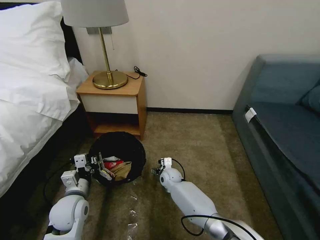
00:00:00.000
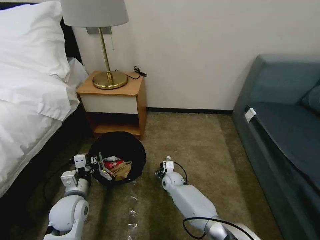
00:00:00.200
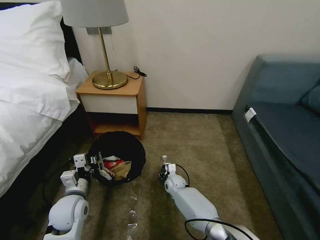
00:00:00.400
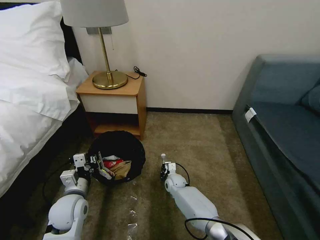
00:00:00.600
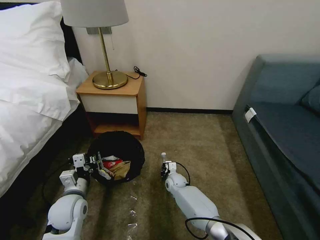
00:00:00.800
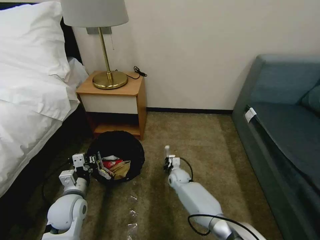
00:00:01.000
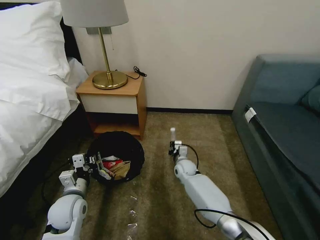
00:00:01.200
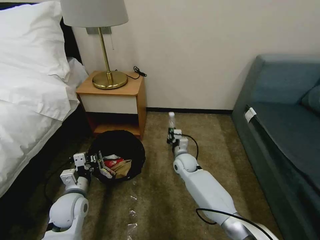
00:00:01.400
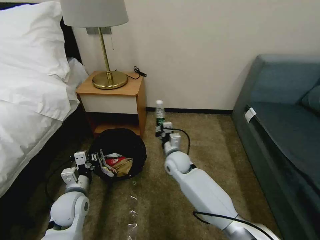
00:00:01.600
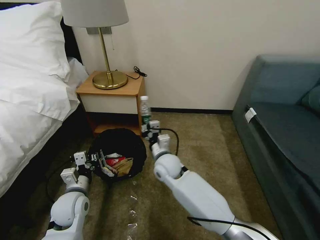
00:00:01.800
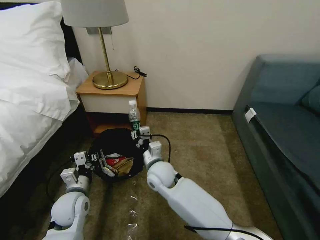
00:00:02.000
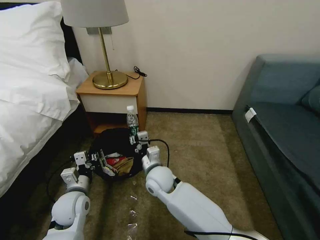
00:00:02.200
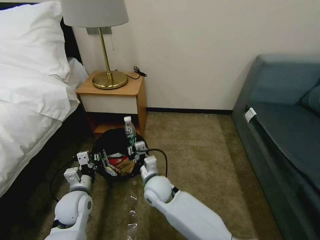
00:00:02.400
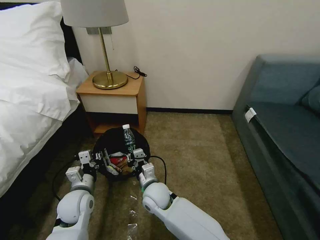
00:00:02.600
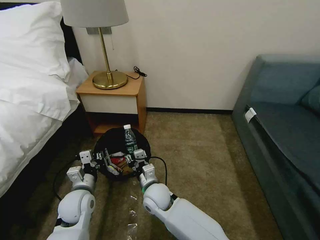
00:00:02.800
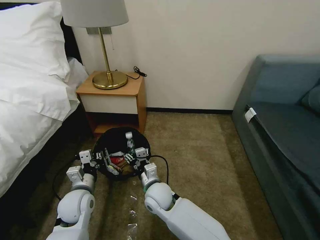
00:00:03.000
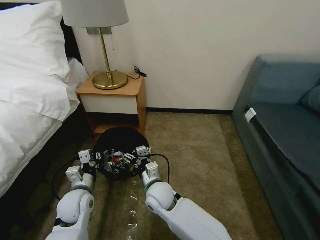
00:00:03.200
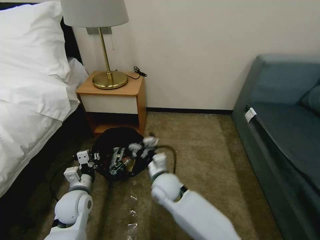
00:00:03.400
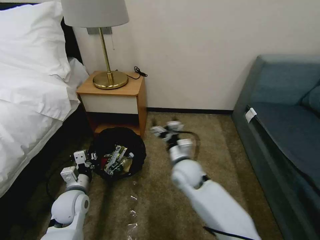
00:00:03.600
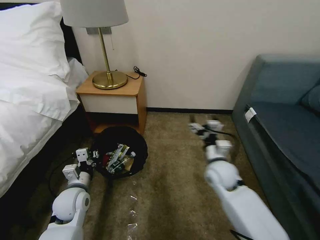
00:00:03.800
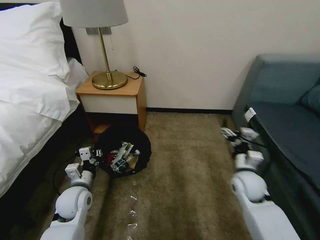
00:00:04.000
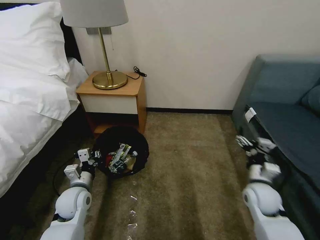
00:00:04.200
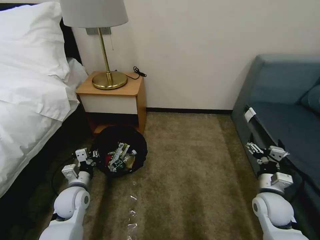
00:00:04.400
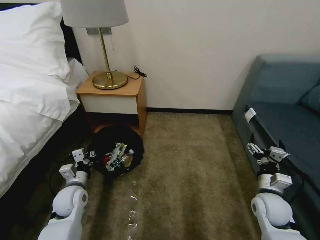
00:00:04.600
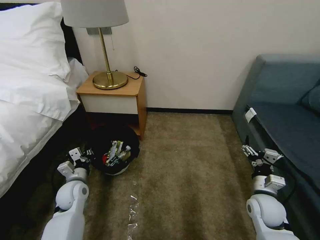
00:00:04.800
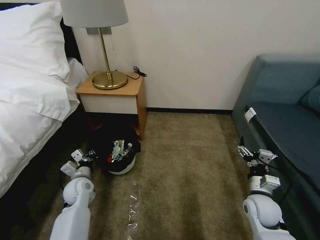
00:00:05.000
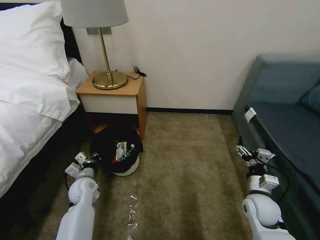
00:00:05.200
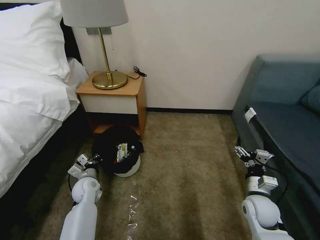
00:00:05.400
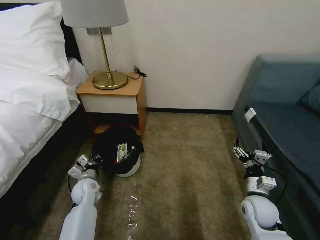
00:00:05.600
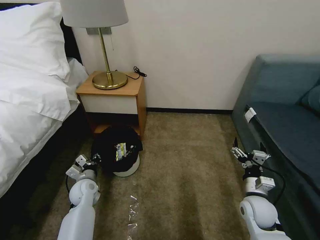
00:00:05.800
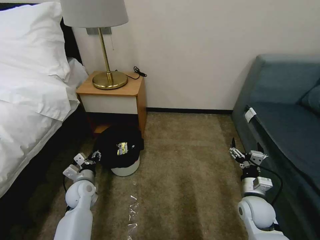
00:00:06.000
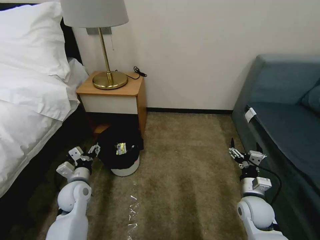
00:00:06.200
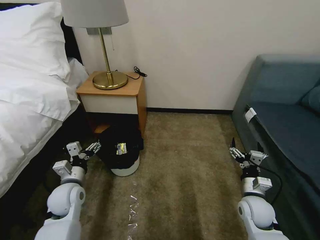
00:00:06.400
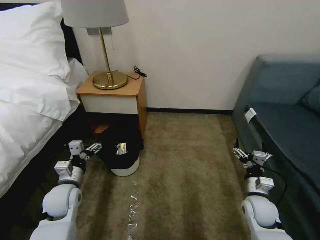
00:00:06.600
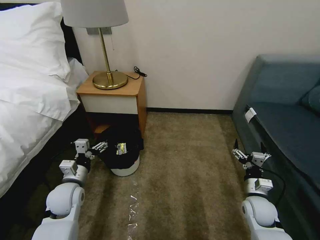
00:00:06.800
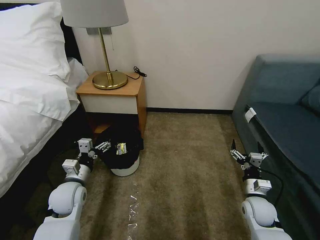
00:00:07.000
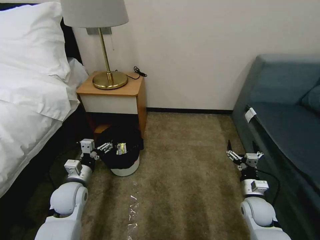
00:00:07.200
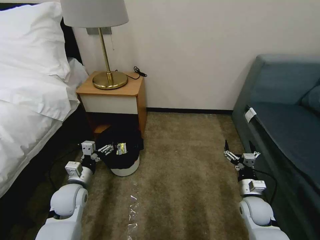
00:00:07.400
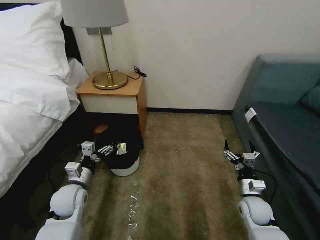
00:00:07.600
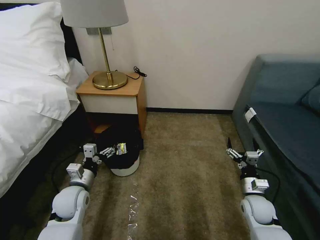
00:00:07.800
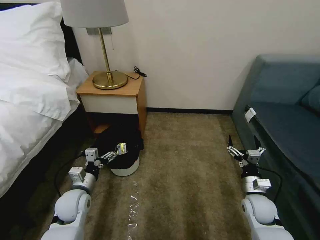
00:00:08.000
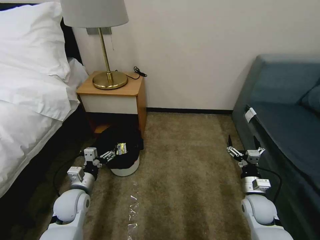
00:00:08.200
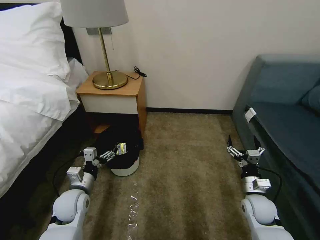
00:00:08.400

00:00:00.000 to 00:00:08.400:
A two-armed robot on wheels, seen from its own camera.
Task of the whole recording: Pick up the trash bin, then pick up the garbage on the floor and place it into the trash bin.
00:00:00.000 to 00:00:01.400: The right gripper moves upward and to the right, roughly 10 cm, and closes.
00:00:01.400 to 00:00:02.800: The right gripper is displaced backward and to the left by about 20 cm.
00:00:02.800 to 00:00:04.200: The right gripper travels to the right by about 35 cm, and opens up.
00:00:04.200 to 00:00:05.600: The left gripper goes about 10 cm downward and forward.
00:00:05.600 to 00:00:07.000: The left gripper travels upward and backward by roughly 10 cm, and opens up.
00:00:07.000 to 00:00:08.400: The grippers make only small movements.
